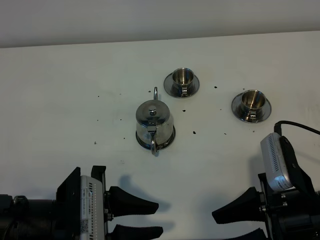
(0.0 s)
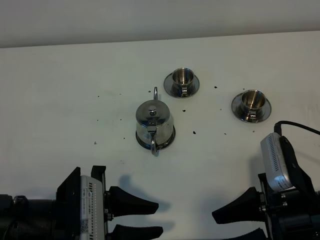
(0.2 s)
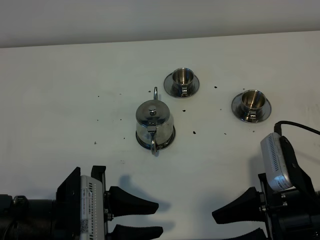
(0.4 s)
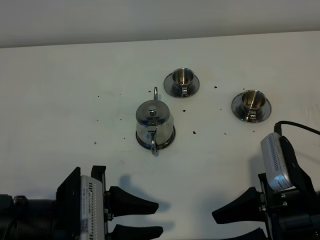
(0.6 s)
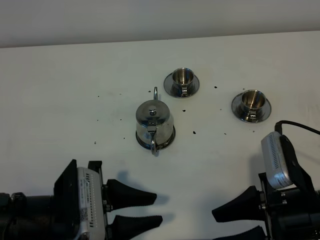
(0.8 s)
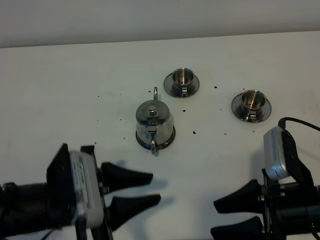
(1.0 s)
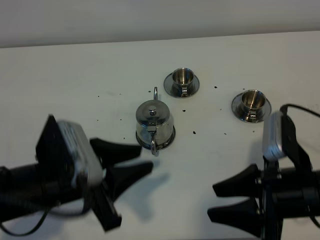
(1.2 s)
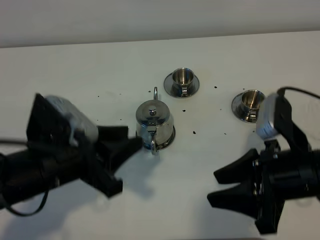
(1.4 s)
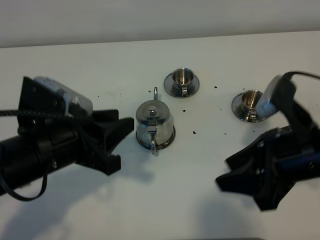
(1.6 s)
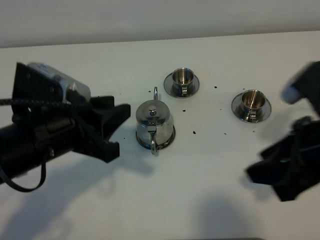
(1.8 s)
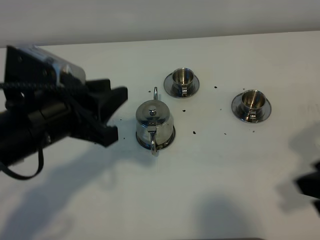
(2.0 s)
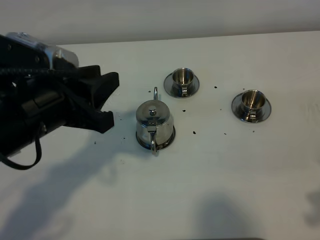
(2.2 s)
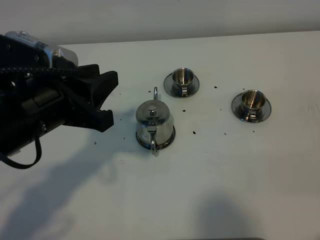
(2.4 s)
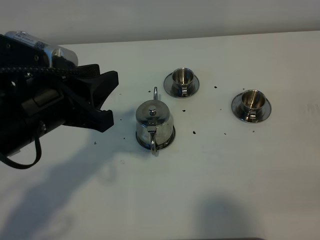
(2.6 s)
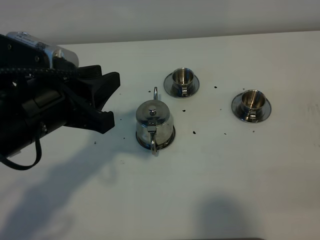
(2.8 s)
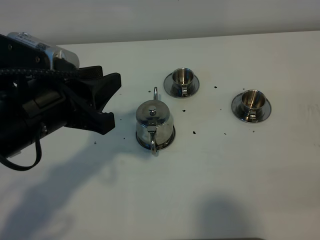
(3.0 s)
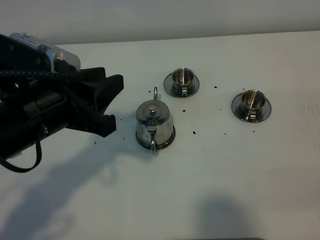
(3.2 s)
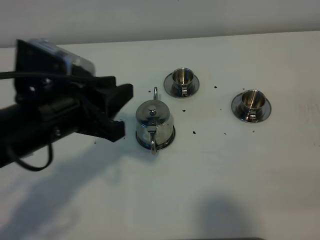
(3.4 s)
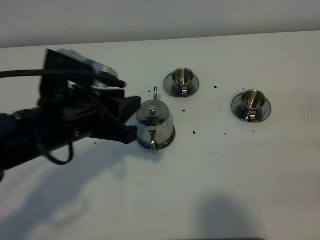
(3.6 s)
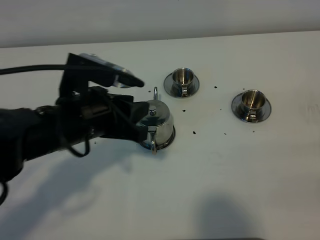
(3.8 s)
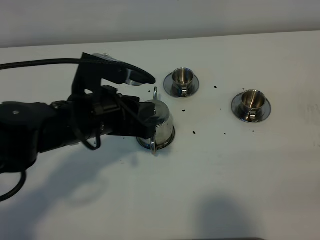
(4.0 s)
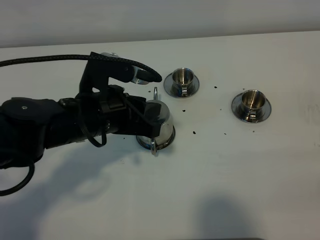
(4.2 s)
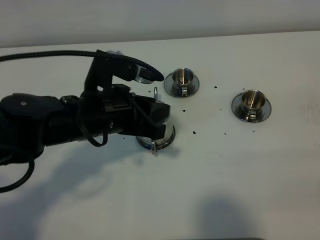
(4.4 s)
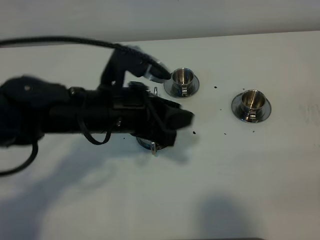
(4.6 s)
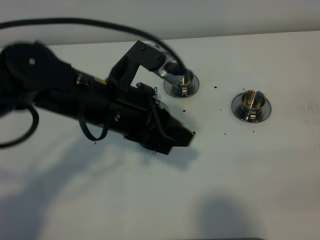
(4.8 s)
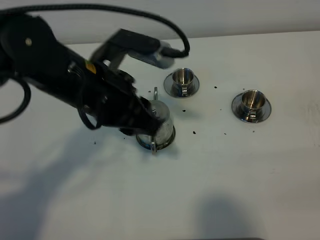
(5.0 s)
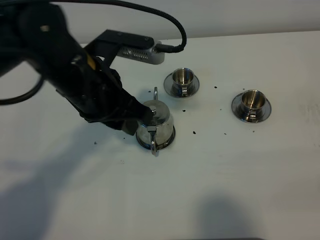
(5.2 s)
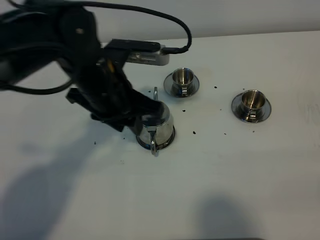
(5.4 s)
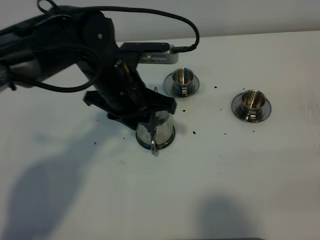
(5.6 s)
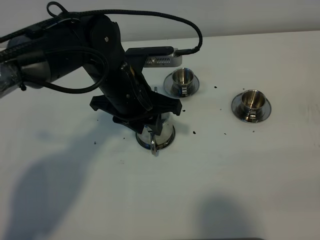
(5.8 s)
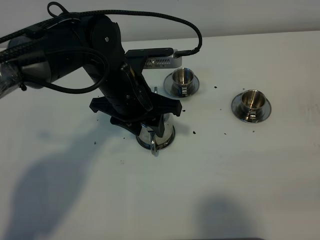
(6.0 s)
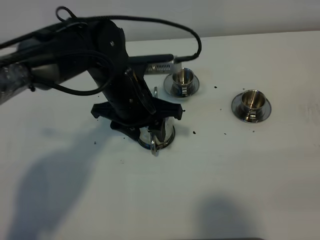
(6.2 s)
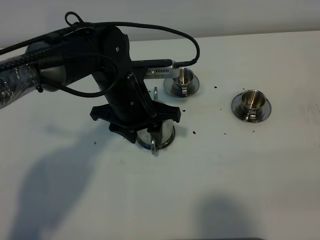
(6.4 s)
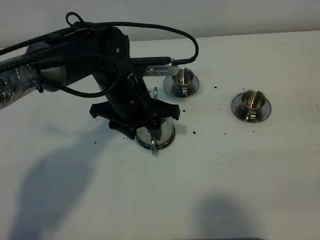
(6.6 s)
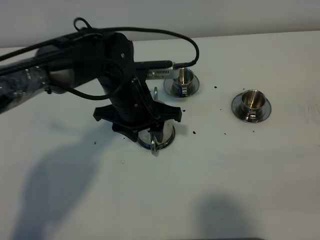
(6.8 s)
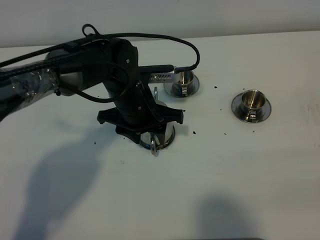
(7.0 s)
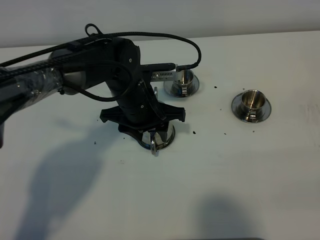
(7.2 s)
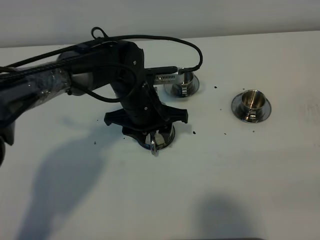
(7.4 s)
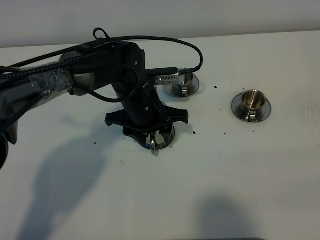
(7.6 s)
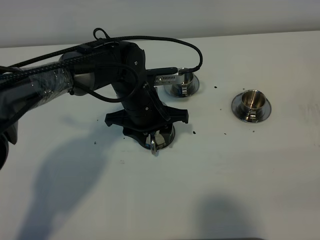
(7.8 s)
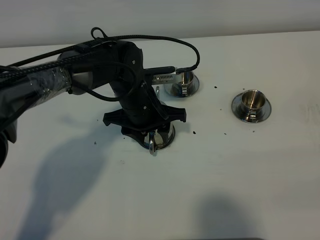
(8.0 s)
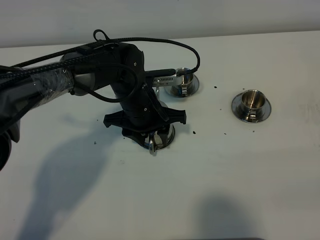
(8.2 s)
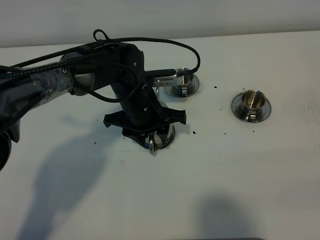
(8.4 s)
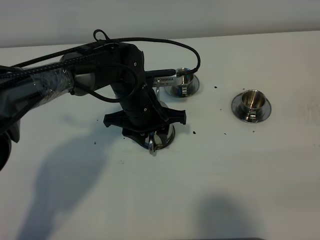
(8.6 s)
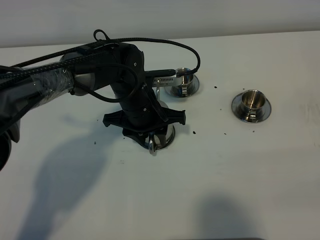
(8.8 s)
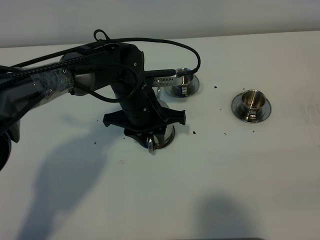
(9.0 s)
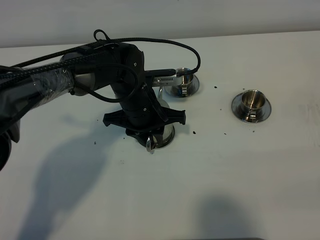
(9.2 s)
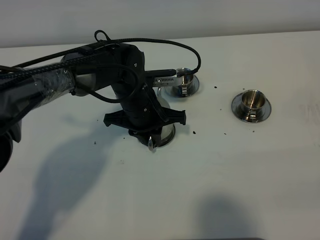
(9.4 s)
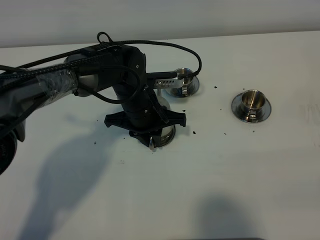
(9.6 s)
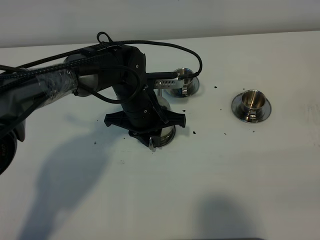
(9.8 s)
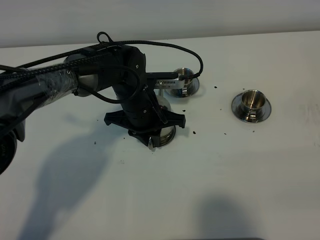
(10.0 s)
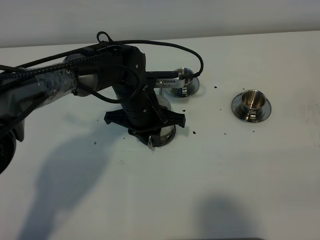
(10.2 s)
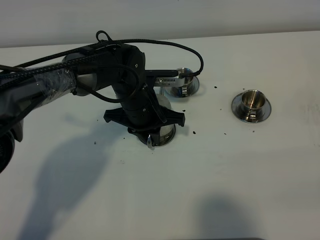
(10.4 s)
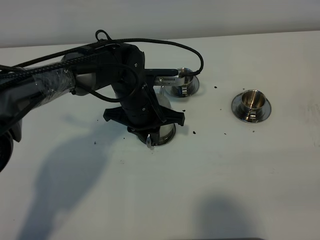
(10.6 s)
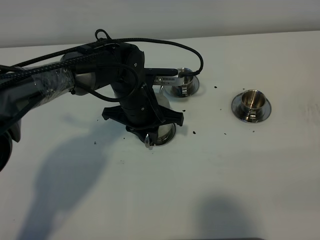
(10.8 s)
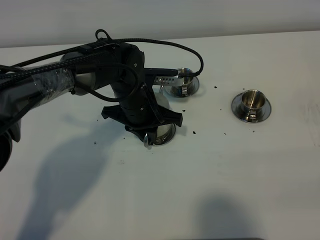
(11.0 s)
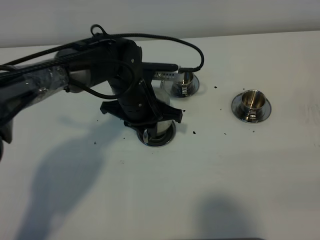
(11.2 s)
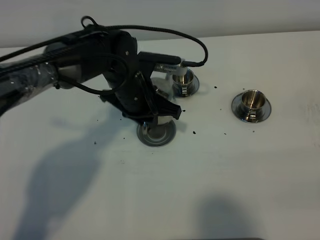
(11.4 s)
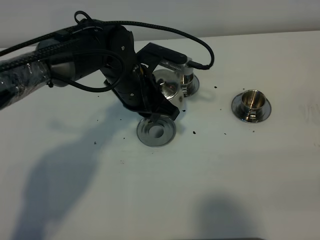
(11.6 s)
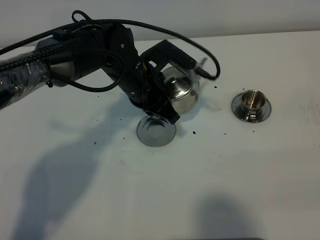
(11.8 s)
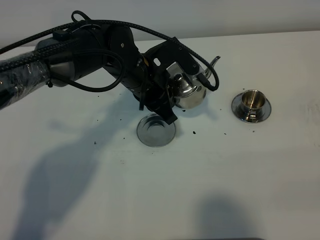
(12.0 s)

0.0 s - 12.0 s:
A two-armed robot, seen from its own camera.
Task of the whole recording: grasp the stainless steel teapot and pour the tea into the two stainless steel teacups one by one, put the stainless steel teapot back in its original place.
Step, 0.0 s - 11.0 s: Pick up the teapot with the left gripper.
0.0 s - 1.6 s: The grippers both shift upward and forward by about 10 cm.
1.6 s - 3.0 s: The right gripper heads backward and to the right, covering roughly 20 cm.
3.0 s - 4.4 s: The left gripper travels downward, to the right and forward by approximately 10 cm.
4.4 s - 6.0 s: The left gripper moves forward, roughly 5 cm, and opens up.
6.0 s - 7.6 s: The left gripper goes about 5 cm downward.
7.6 s - 9.0 s: The left gripper closes up.
9.0 s - 10.4 s: The left gripper closes its fingers.
10.4 s - 12.0 s: The left gripper moves upward, some 5 cm.

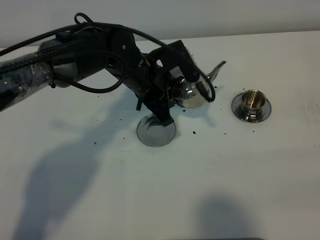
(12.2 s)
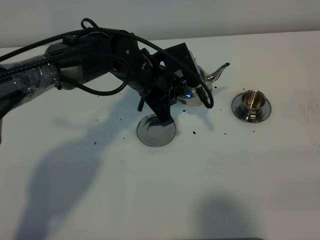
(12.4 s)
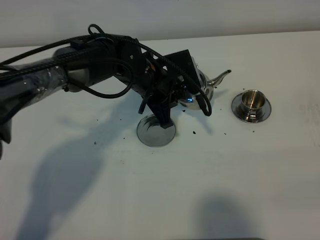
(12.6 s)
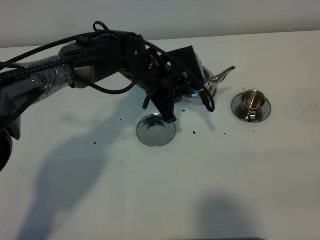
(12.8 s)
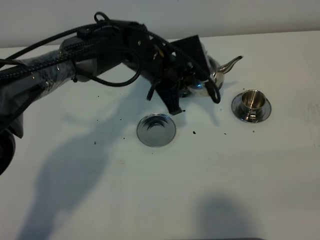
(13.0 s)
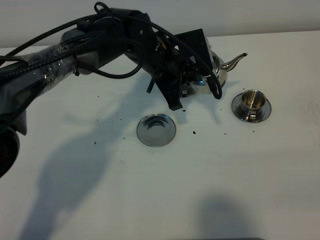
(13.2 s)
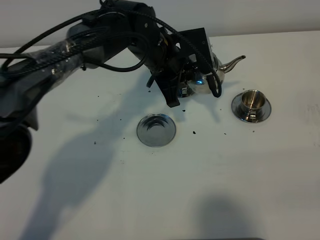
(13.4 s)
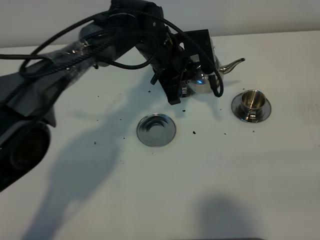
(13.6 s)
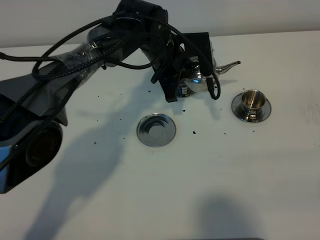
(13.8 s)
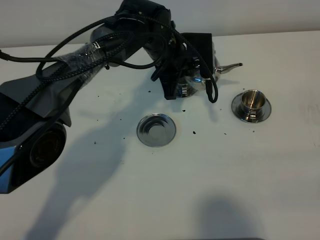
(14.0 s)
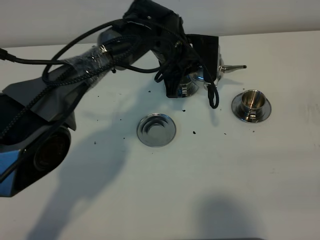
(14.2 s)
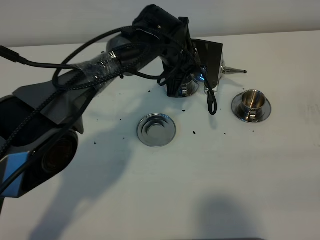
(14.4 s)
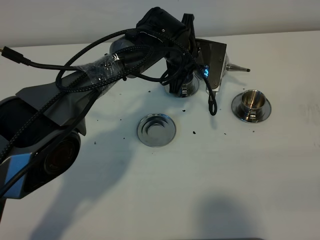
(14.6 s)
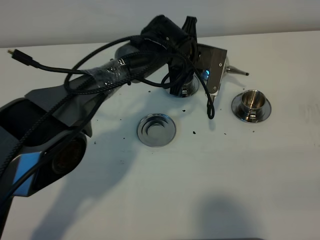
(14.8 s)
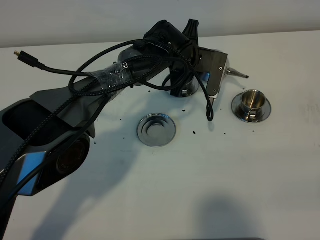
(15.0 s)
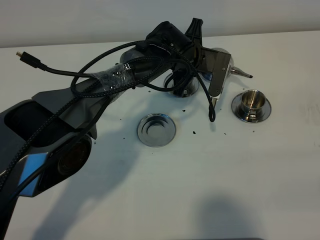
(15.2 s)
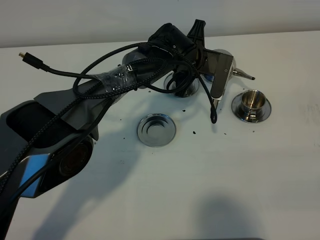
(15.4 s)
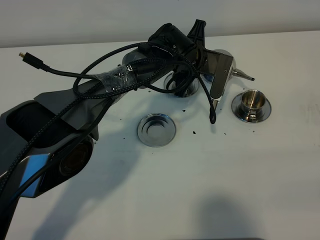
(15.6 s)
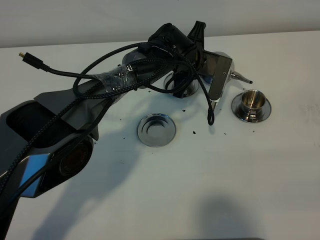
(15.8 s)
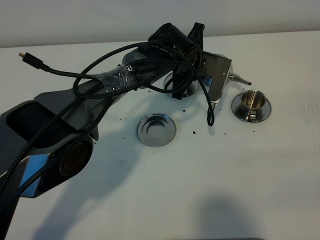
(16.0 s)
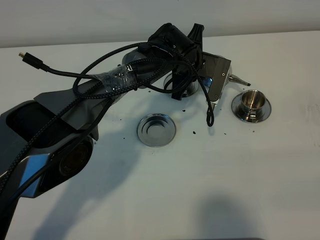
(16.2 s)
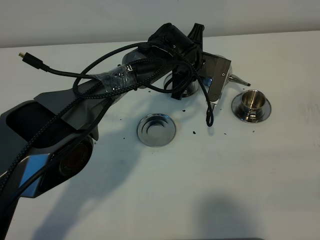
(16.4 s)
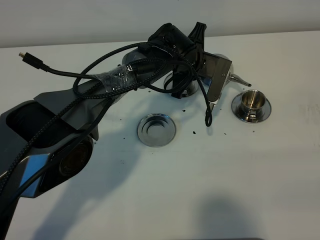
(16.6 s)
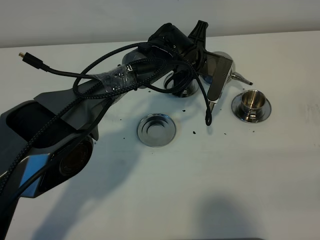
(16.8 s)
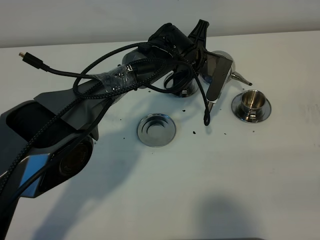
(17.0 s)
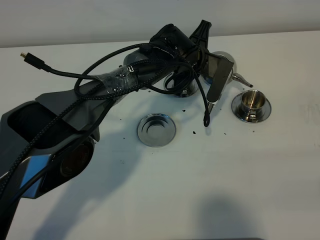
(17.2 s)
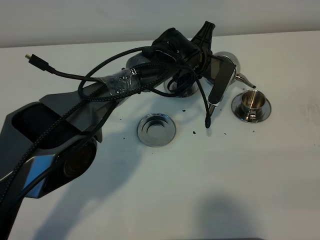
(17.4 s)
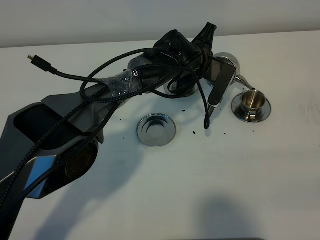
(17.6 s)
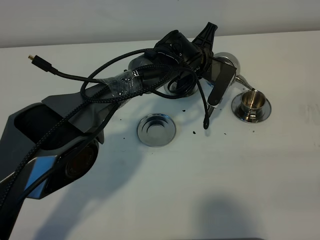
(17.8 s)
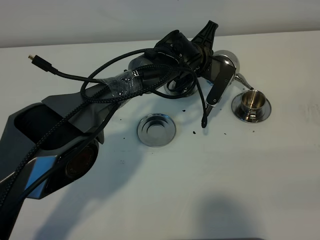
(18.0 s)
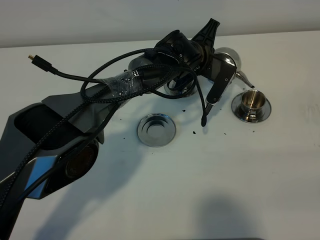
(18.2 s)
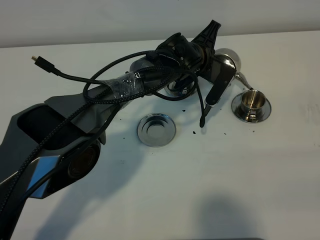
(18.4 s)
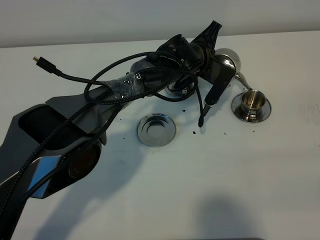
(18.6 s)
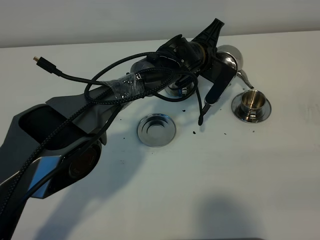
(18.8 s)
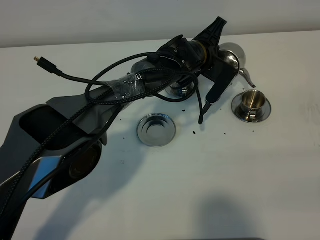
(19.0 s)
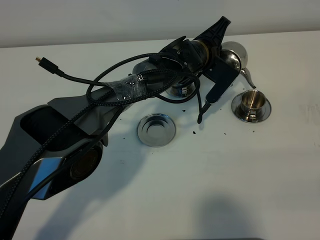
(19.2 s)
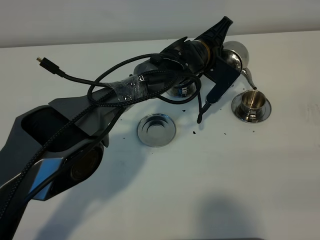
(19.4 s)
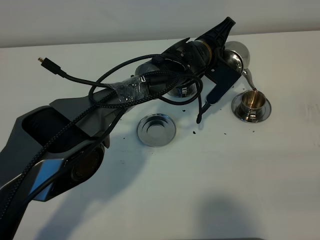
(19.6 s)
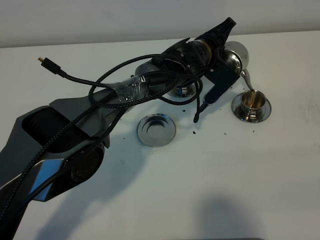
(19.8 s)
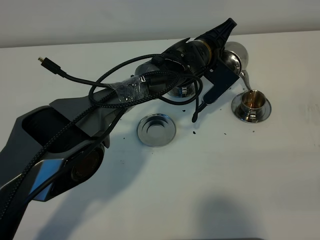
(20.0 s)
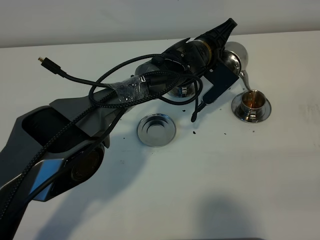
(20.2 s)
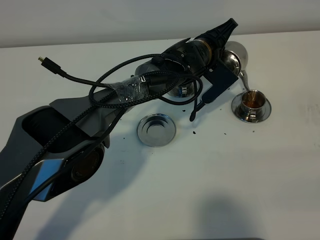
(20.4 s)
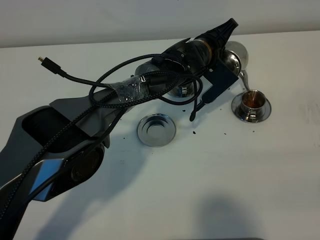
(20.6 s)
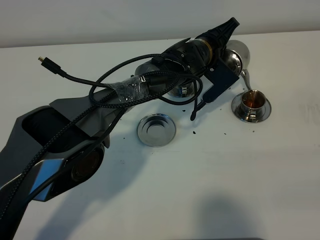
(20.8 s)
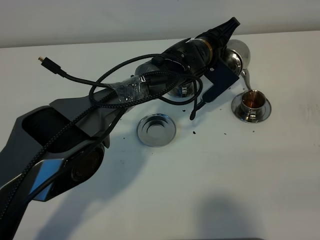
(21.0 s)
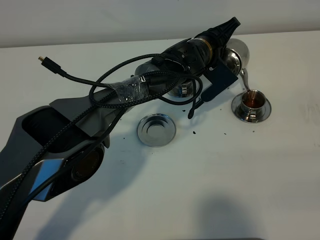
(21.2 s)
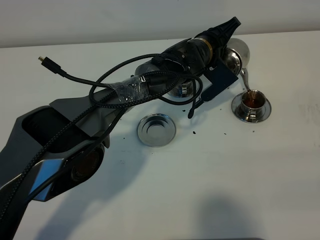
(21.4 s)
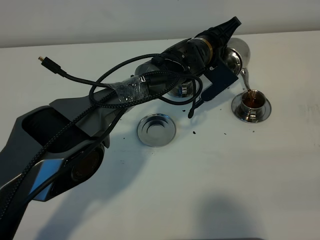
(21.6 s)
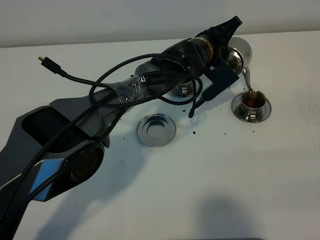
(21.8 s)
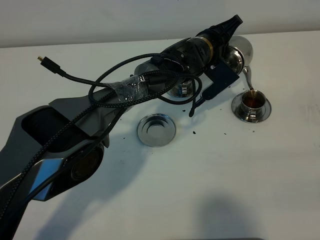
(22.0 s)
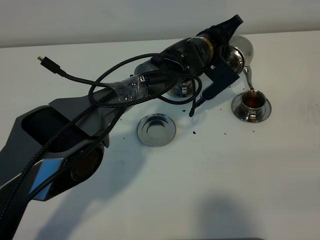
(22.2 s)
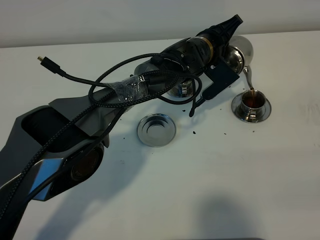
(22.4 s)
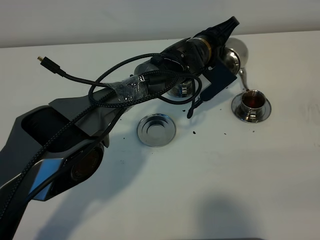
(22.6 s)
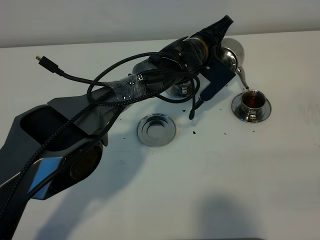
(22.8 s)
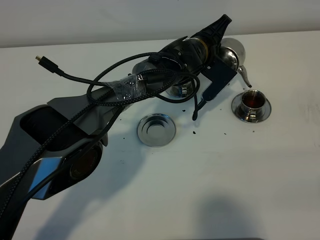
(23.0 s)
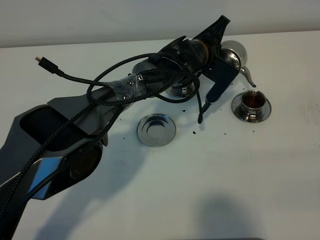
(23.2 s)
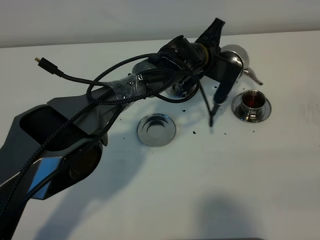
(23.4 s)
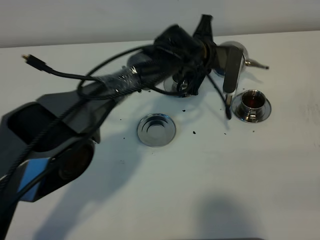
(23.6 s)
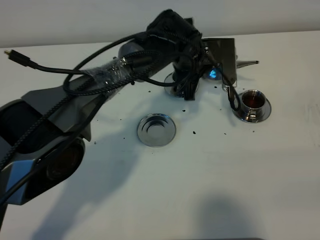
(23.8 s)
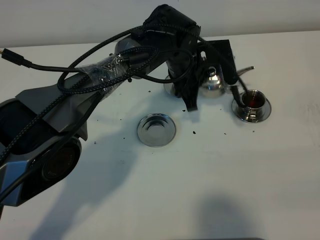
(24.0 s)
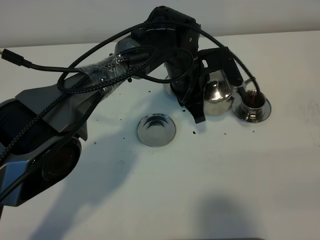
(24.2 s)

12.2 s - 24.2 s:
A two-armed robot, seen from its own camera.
Task of the whole recording: grasp the stainless steel teapot and pour the tea into the two stainless steel teacups one by one, put the stainless steel teapot back in its original place.
Step, 12.2 s - 23.0 s: Pour tea into the teacup with the left gripper.
12.2 s - 13.8 s: The left gripper shifts roughly 5 cm forward.
13.8 s - 15.2 s: The left gripper ends up some 5 cm from where it was.
15.2 s - 16.6 s: The two grippers keep their place.
16.6 s - 18.2 s: The grippers move only a little.
18.2 s - 19.8 s: The grippers move only a little.
19.8 s - 21.2 s: The grippers stay close to where they were, moving slightly.
21.2 s - 22.6 s: Both grippers stay put.
22.6 s - 24.2 s: The left gripper is displaced backward by approximately 5 cm.
